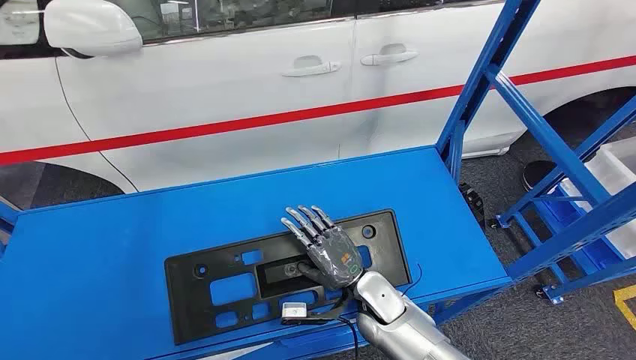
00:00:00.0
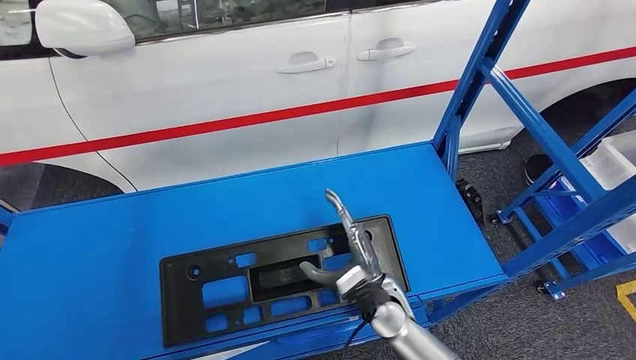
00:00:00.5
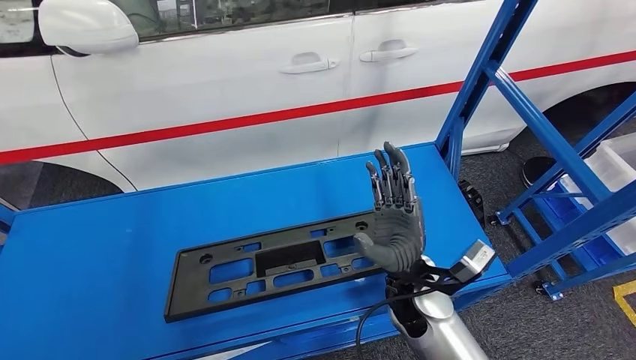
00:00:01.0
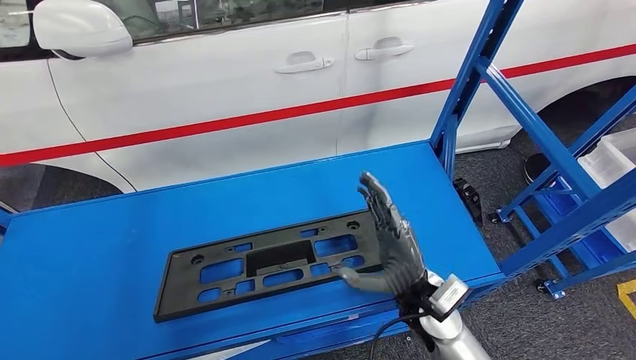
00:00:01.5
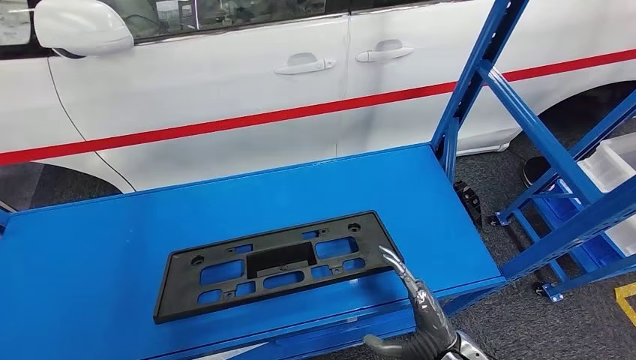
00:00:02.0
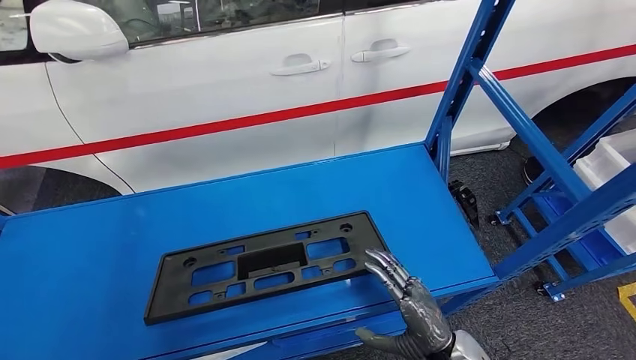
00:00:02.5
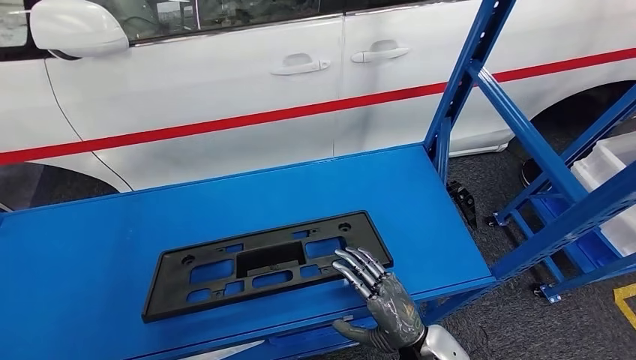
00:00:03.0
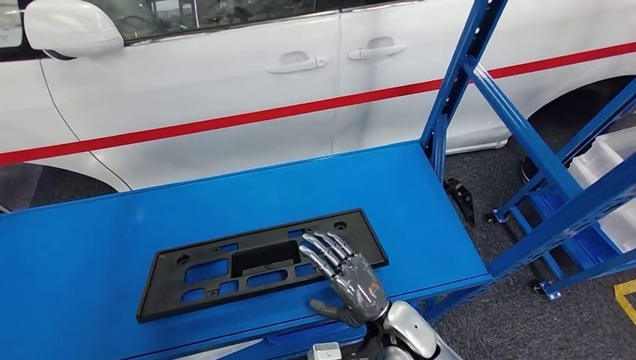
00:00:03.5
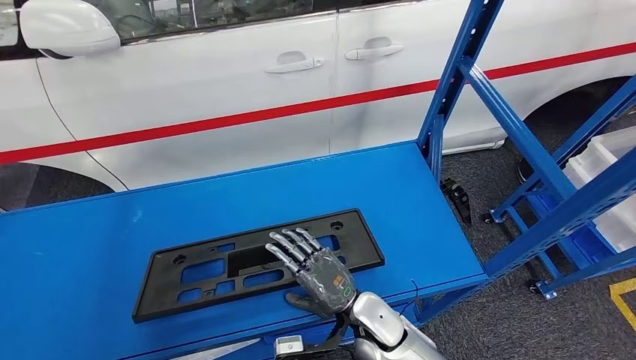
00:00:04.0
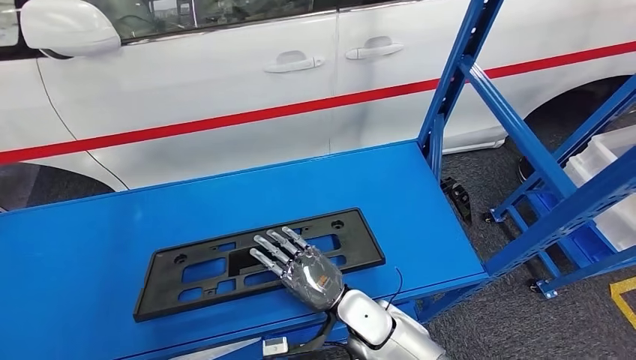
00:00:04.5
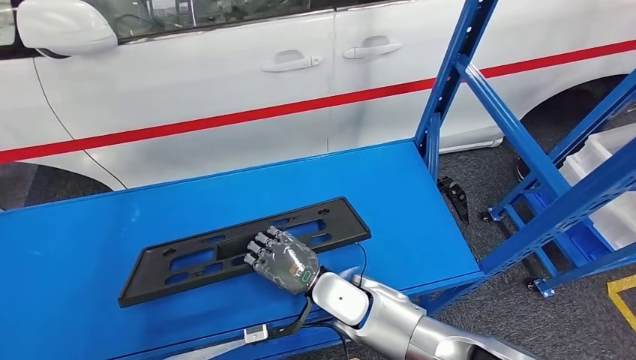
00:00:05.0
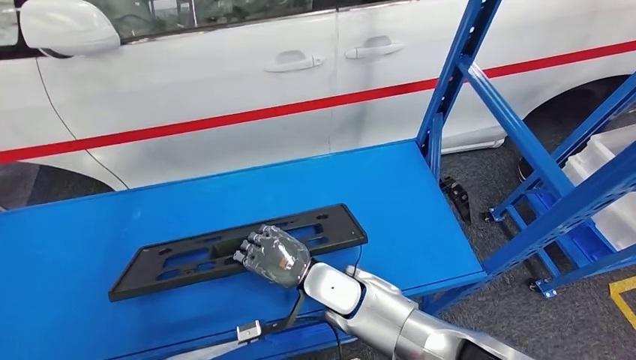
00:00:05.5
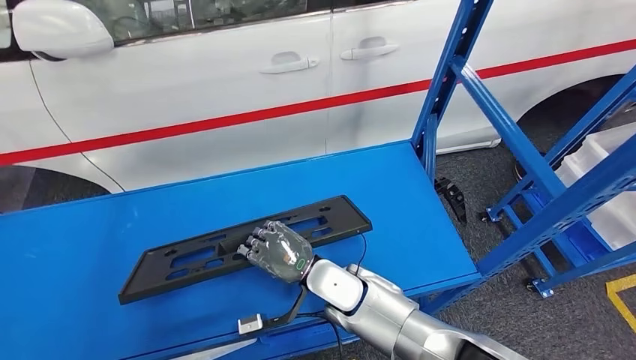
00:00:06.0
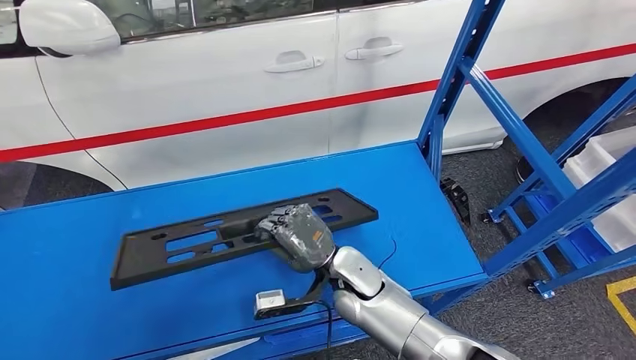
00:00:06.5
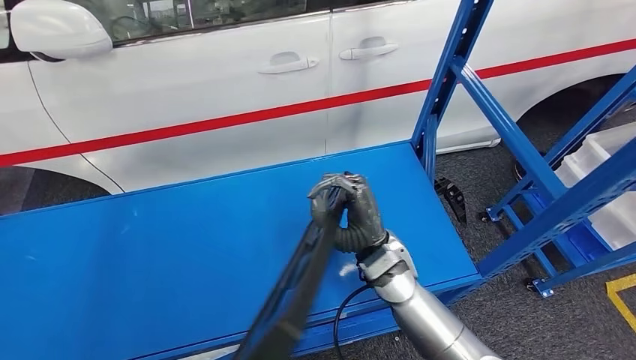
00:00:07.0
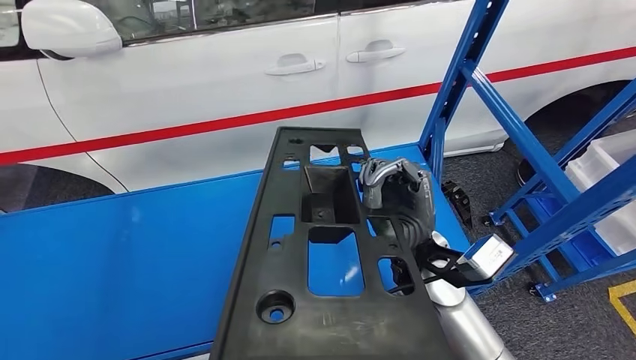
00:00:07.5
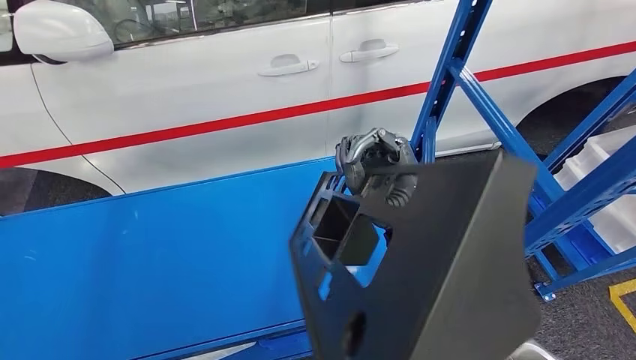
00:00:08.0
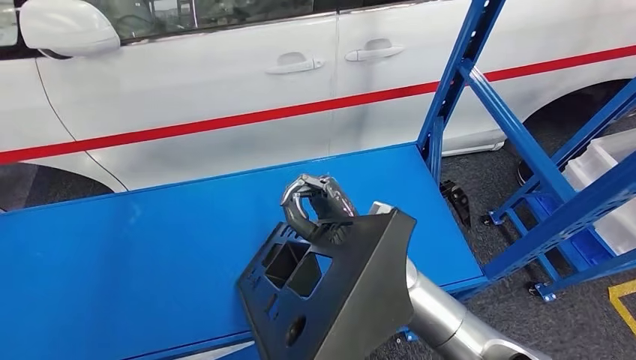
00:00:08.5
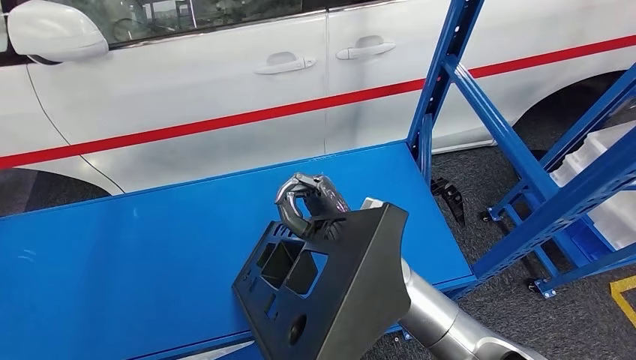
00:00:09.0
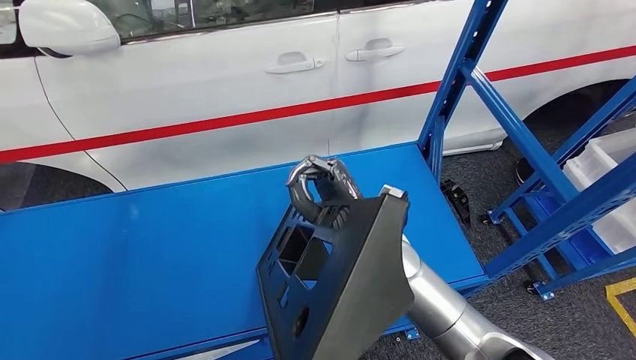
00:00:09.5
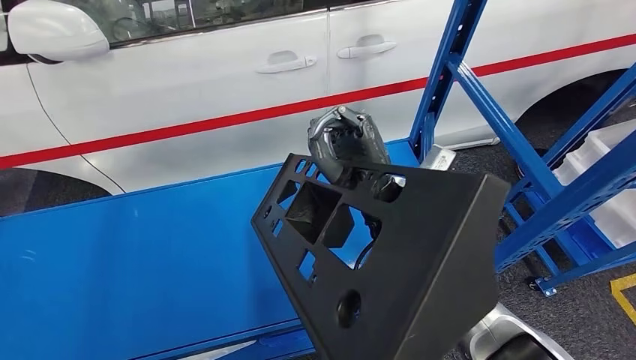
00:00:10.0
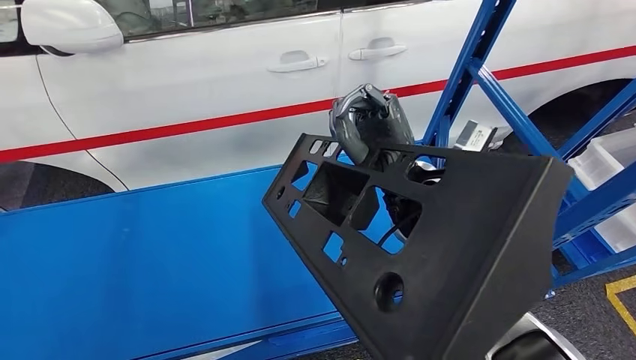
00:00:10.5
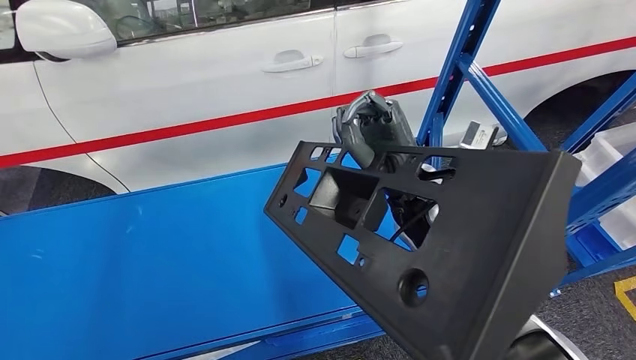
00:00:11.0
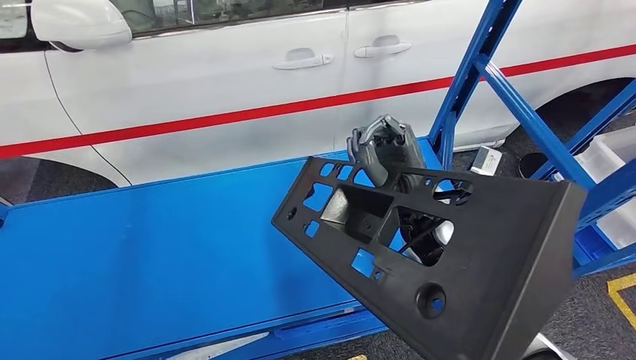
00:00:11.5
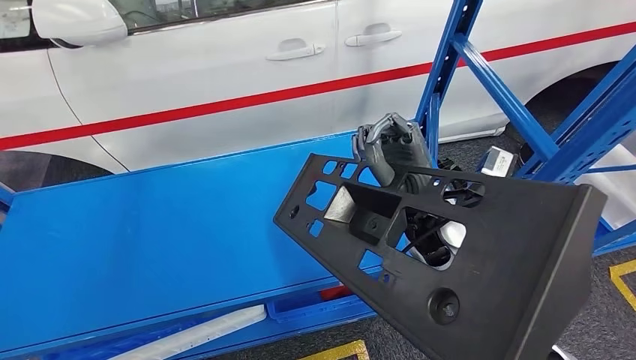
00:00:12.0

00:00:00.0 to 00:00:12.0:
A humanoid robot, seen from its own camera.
Step, 00:00:00.0 to 00:00:08.5: Pick up the large material from the shelf.

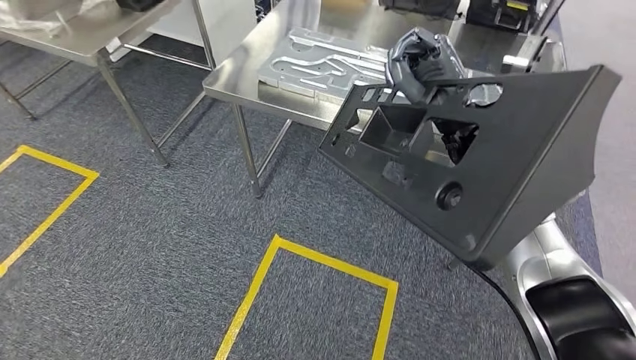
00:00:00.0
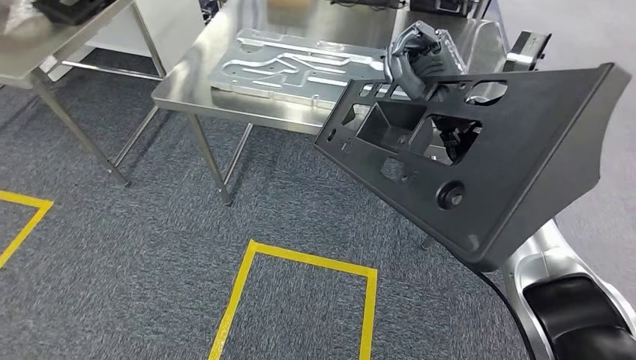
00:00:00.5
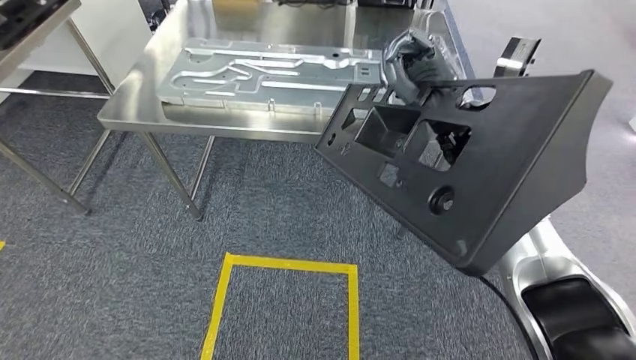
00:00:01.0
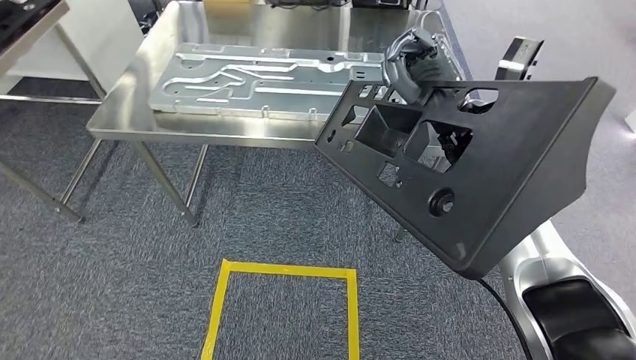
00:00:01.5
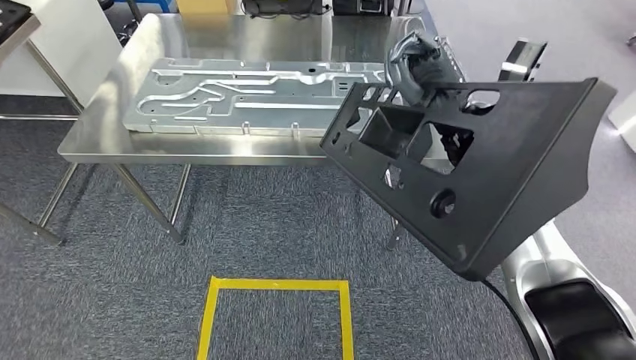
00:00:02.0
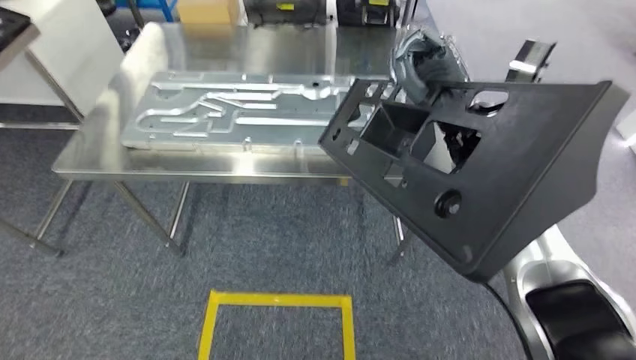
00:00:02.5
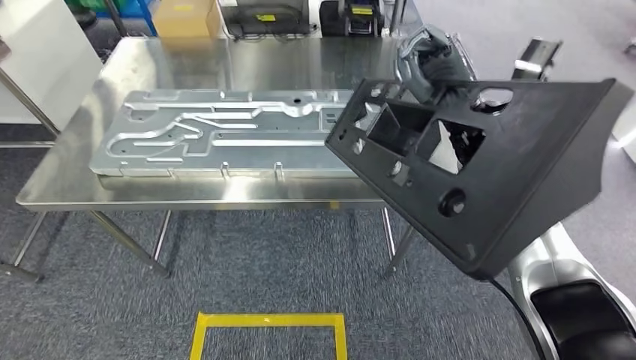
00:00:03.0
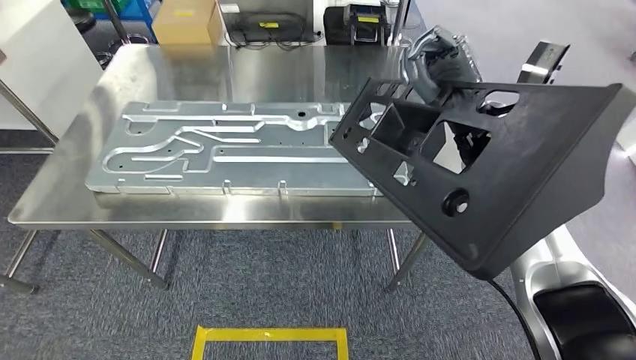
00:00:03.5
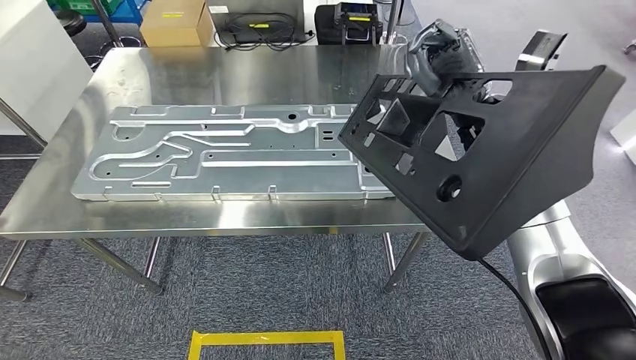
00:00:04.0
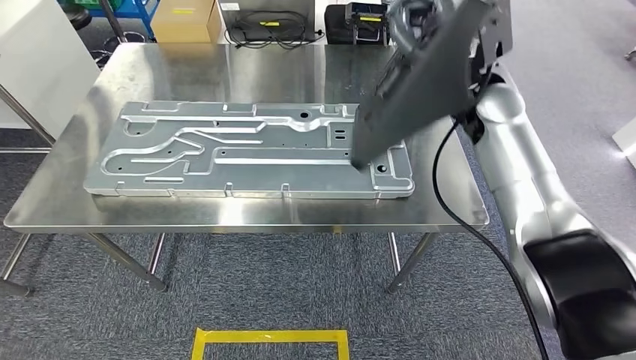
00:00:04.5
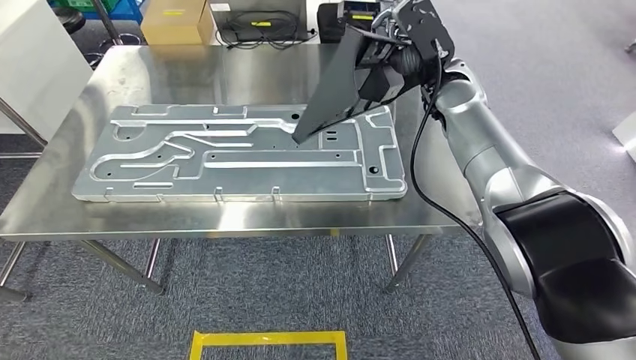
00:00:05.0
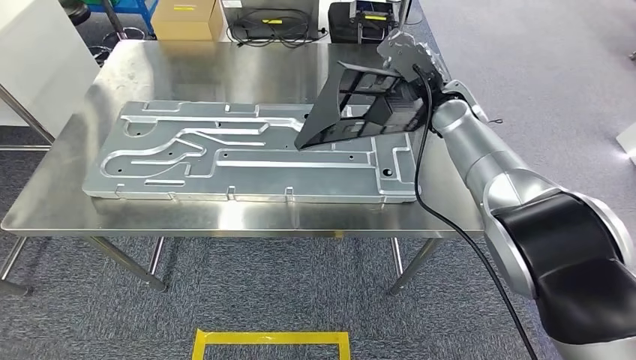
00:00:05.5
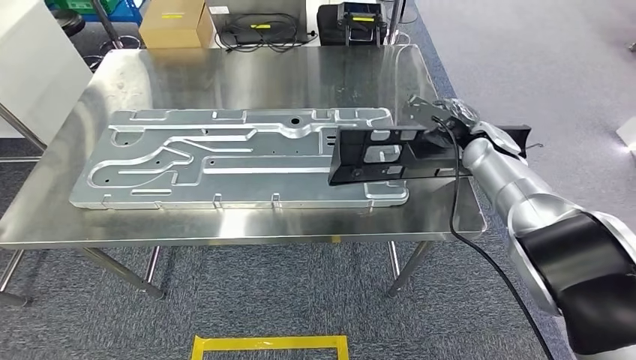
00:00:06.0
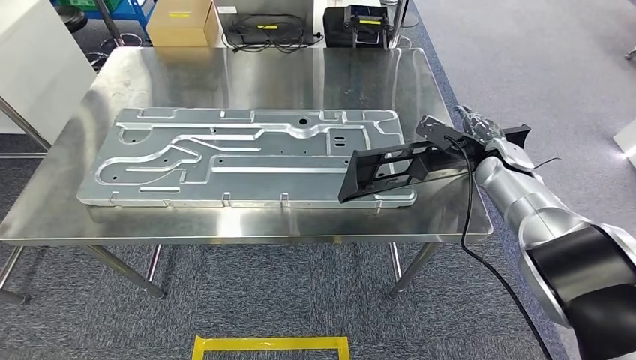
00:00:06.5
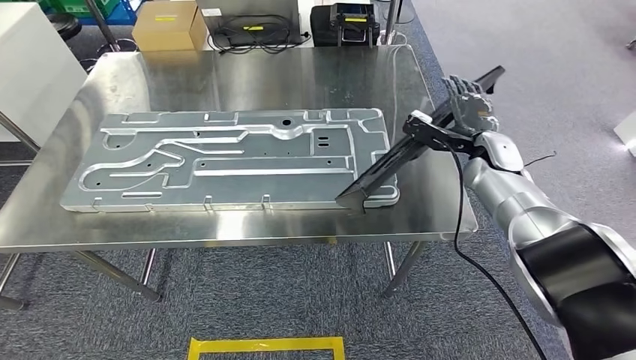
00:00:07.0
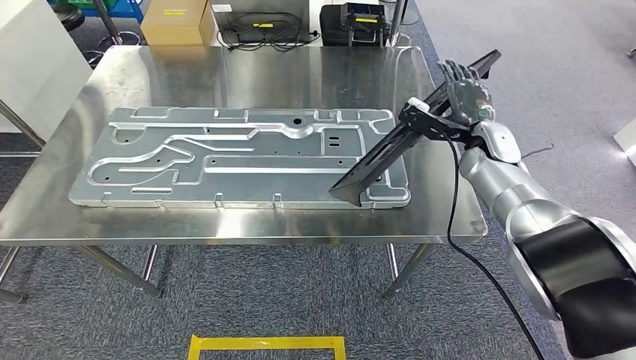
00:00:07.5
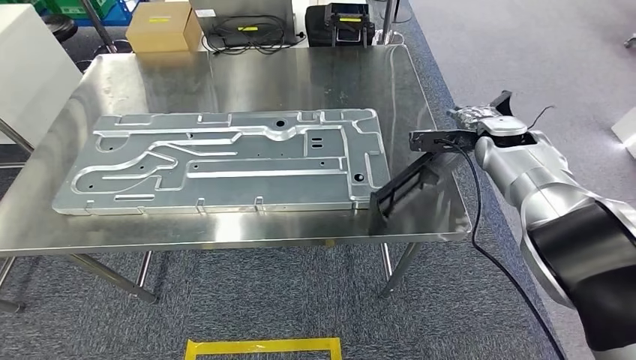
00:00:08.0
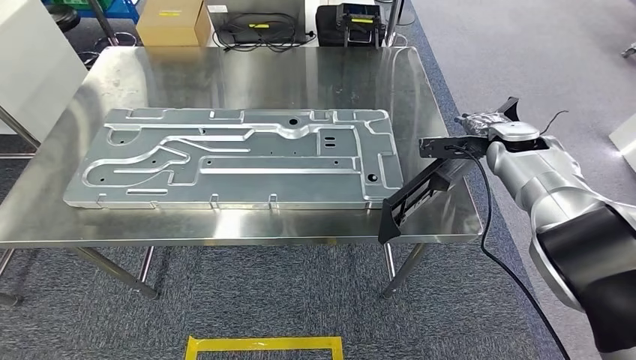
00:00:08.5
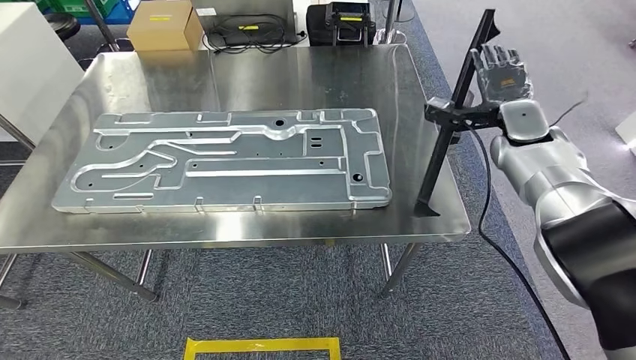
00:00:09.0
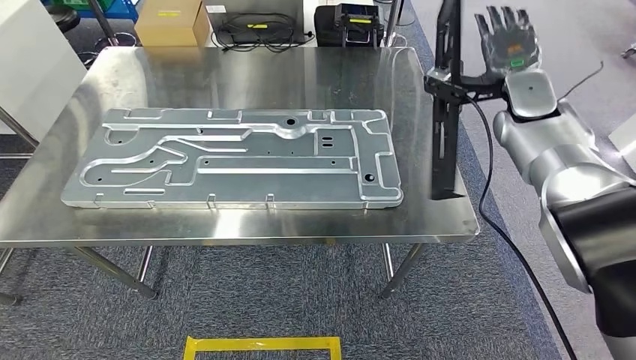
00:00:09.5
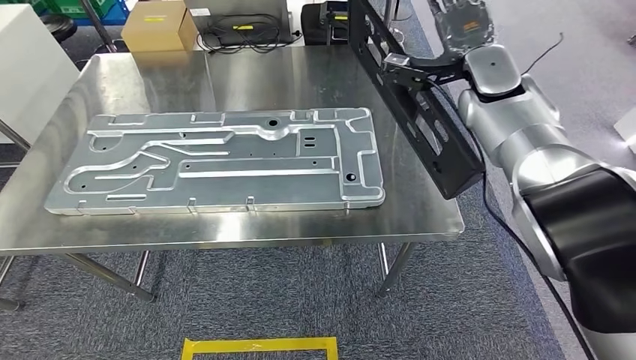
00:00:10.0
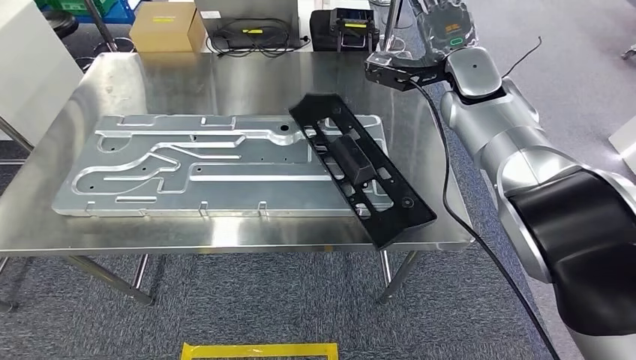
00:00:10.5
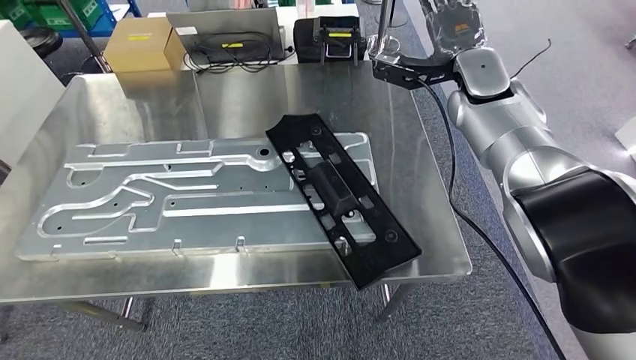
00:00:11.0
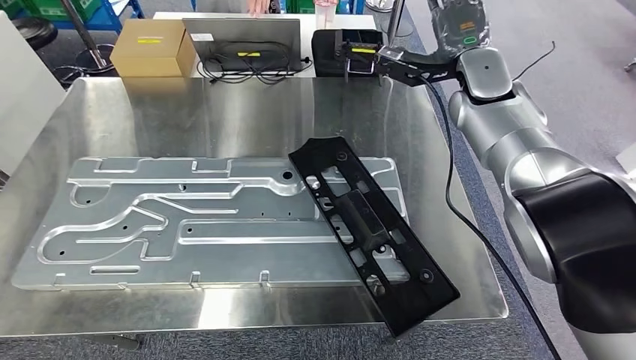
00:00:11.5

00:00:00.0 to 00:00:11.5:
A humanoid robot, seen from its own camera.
Step, 00:00:00.0 to 00:00:04.0: Move the large material to the front of the workbench.
